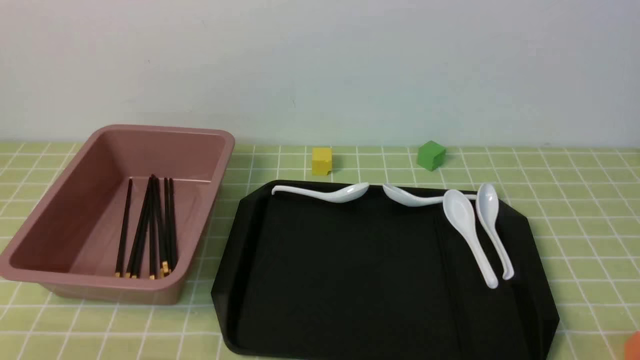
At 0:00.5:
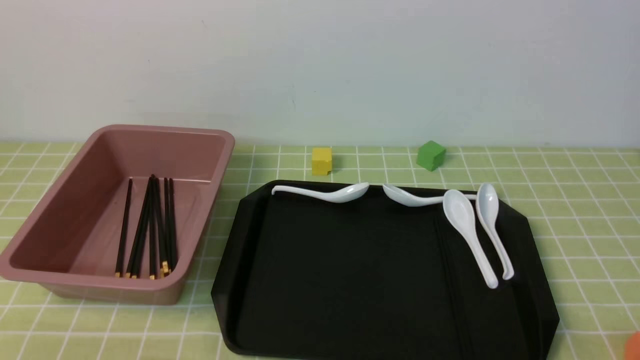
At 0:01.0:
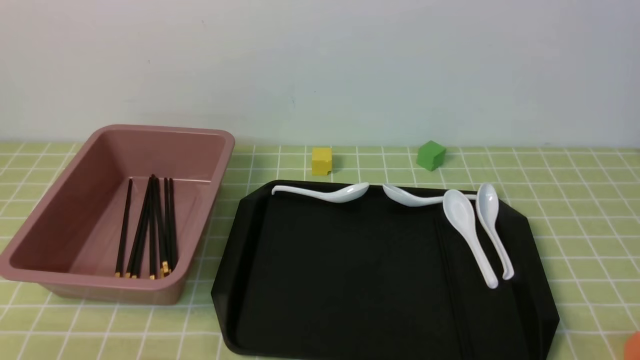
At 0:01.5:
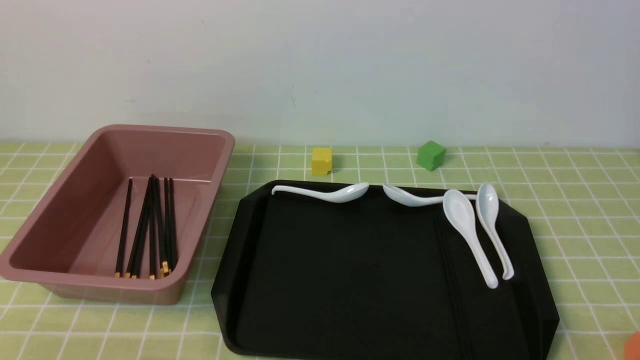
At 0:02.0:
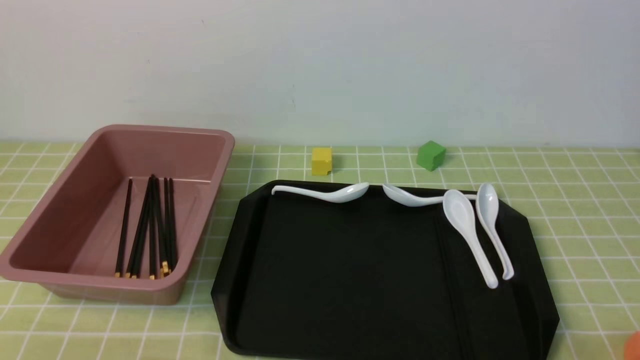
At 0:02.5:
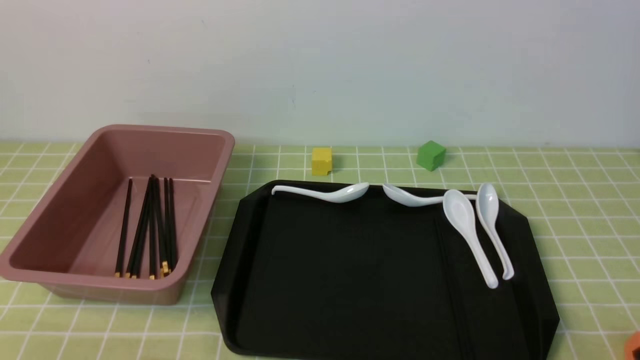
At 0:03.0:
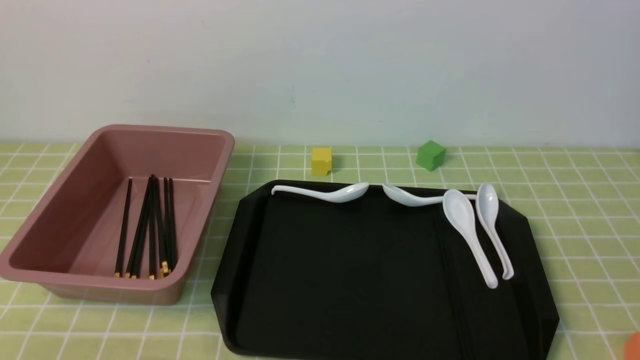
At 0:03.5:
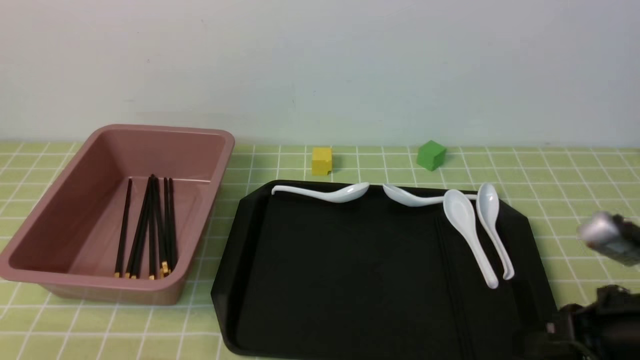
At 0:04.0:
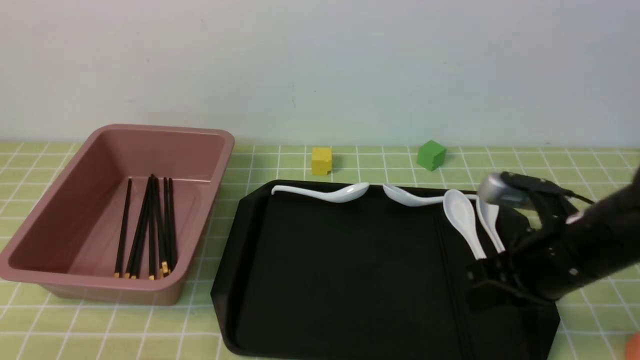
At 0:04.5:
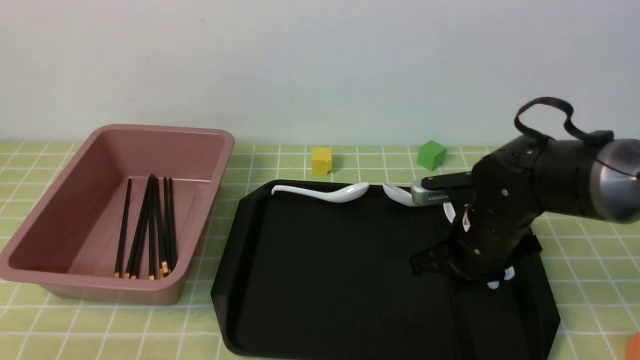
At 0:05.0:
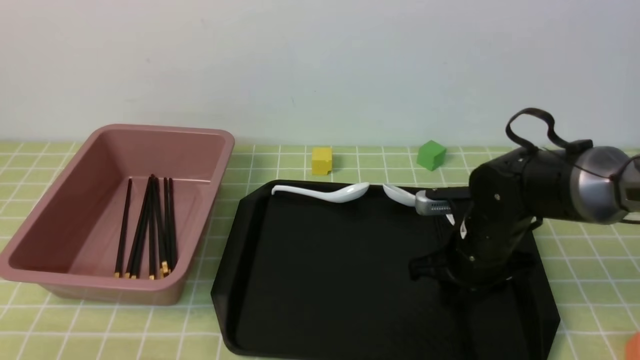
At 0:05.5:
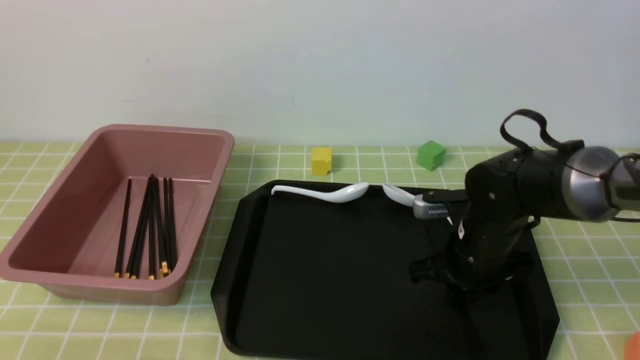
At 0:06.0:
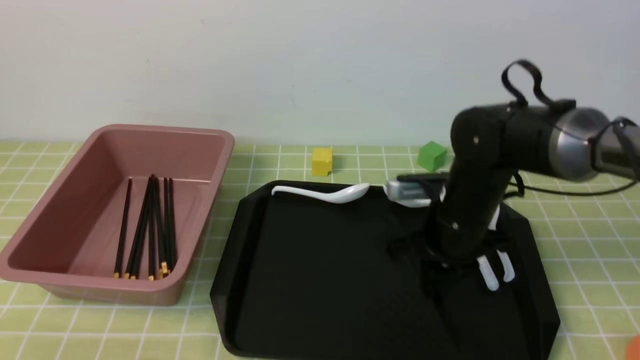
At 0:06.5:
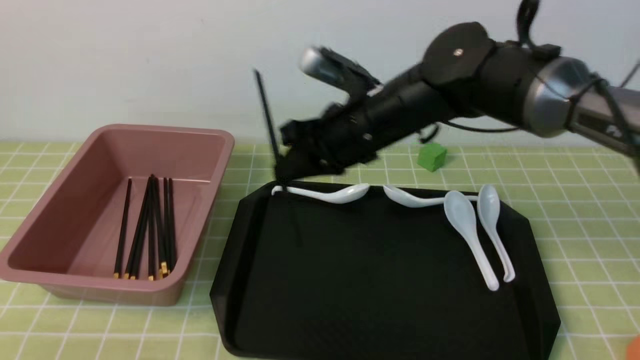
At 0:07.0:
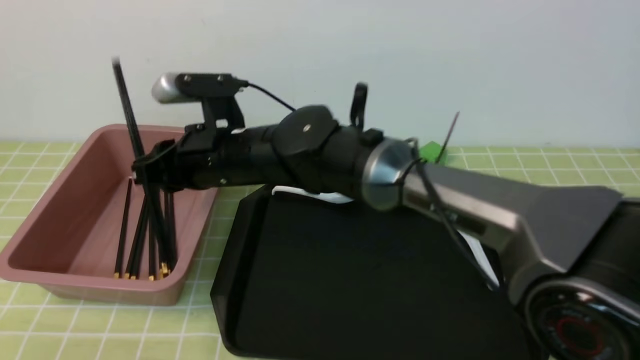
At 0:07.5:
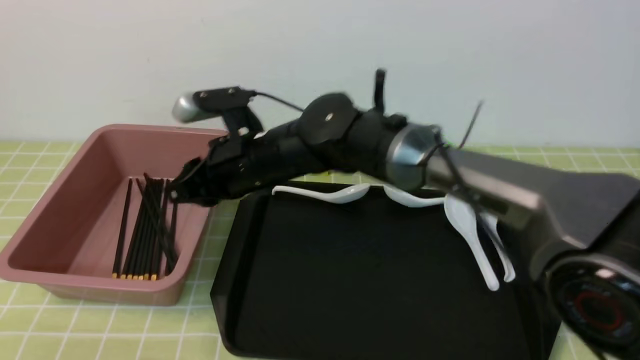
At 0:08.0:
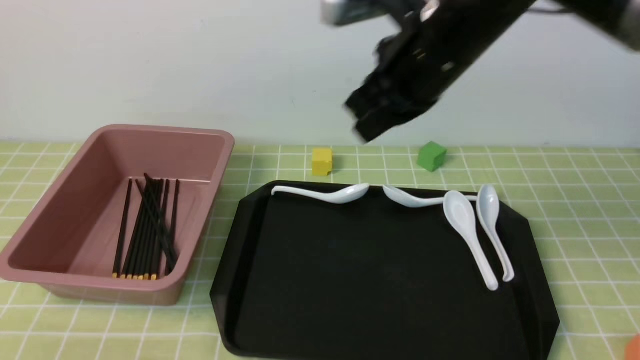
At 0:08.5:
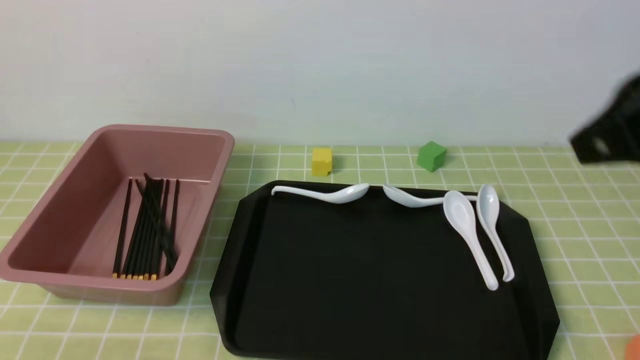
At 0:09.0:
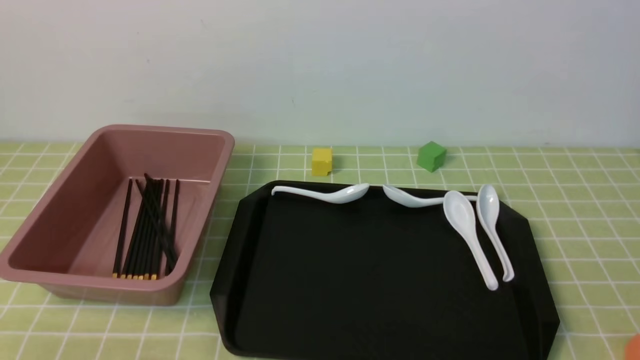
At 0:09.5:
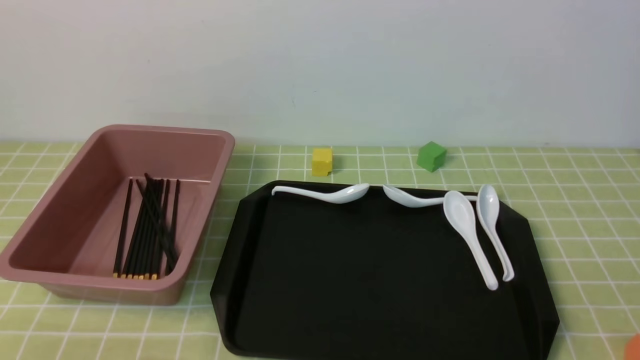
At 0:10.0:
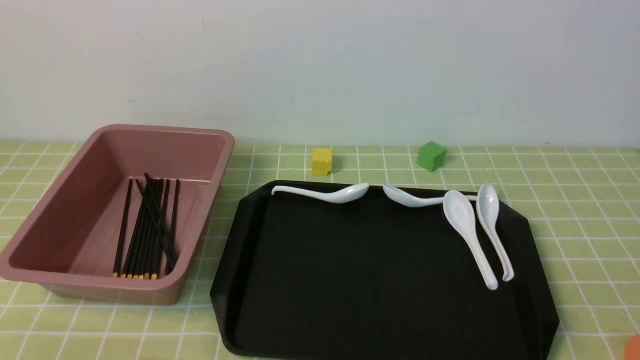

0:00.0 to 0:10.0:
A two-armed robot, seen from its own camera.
Step, 0:00.0 to 0:06.0: use the right arm to grab a pair of chopsticks.
Step, 0:06.5 to 0:07.0: use the right arm to put the chopsticks into the lunch box.
0:02.0 to 0:04.0: The right gripper moves forward, about 20 cm, and closes its fingers.
0:04.0 to 0:06.0: The right gripper shifts approximately 15 cm forward and to the left, and opens, then closes again.
0:06.0 to 0:08.0: The right gripper heads upward, covering roughly 20 cm, travels to the left and back again, approximately 20 cm each way, and closes up.
0:08.0 to 0:10.0: The right gripper travels backward and to the right by roughly 40 cm.

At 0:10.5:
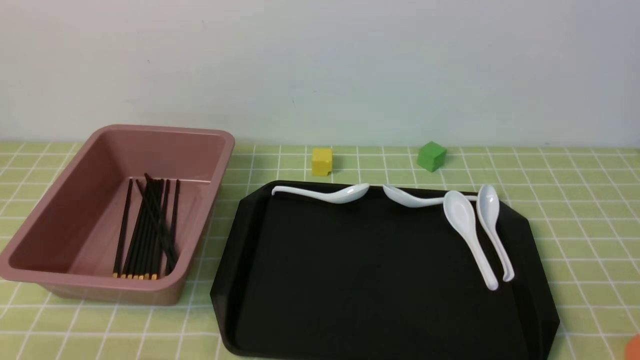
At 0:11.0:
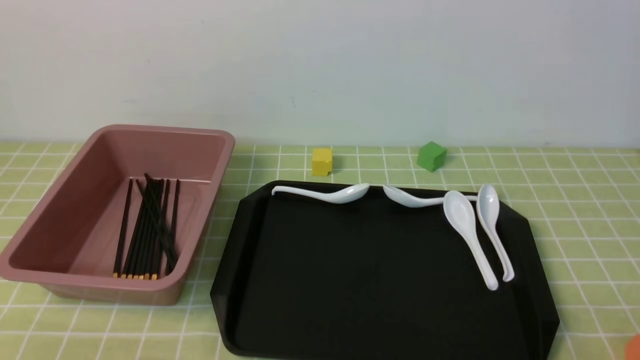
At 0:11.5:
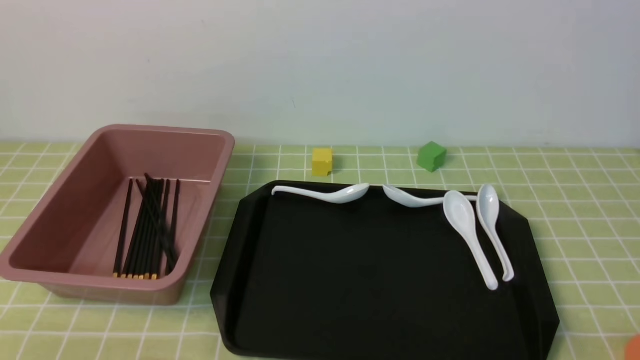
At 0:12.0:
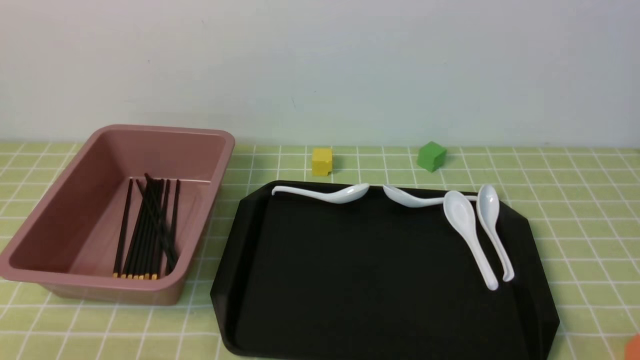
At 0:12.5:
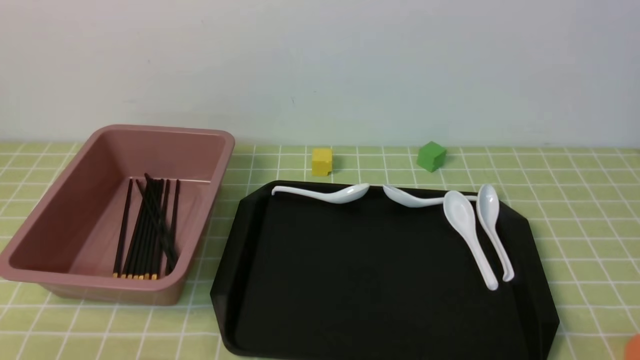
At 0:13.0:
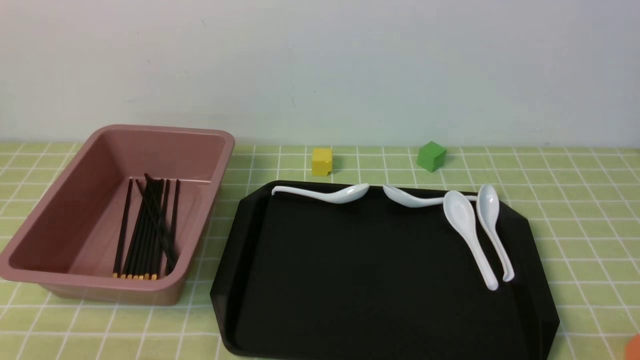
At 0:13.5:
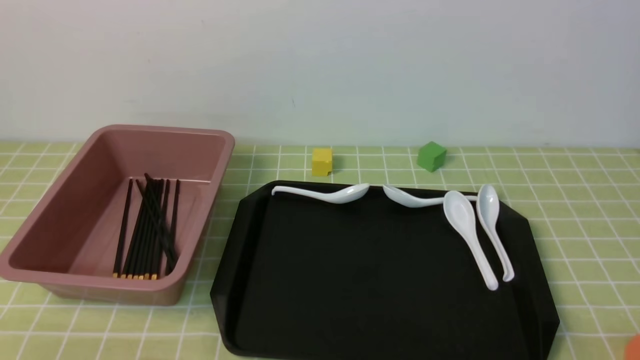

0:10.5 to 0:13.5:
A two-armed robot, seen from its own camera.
0:12.0 to 0:13.5: Both grippers stay about where they are.

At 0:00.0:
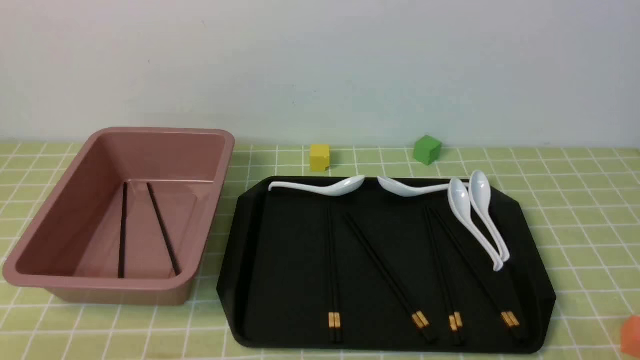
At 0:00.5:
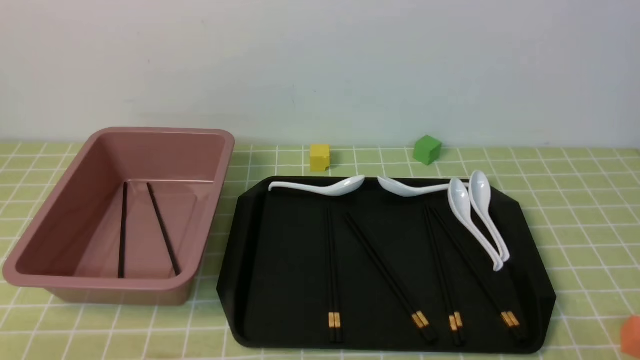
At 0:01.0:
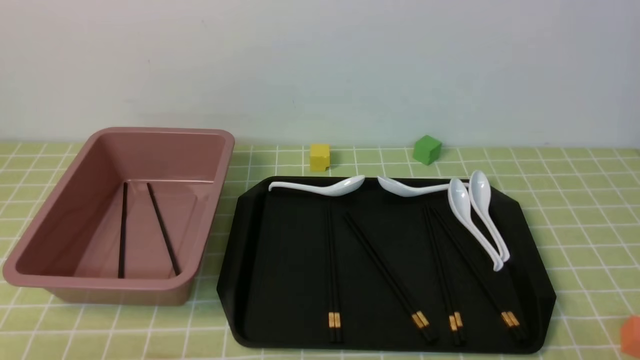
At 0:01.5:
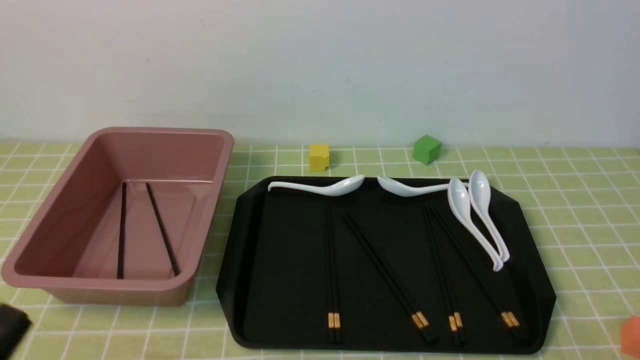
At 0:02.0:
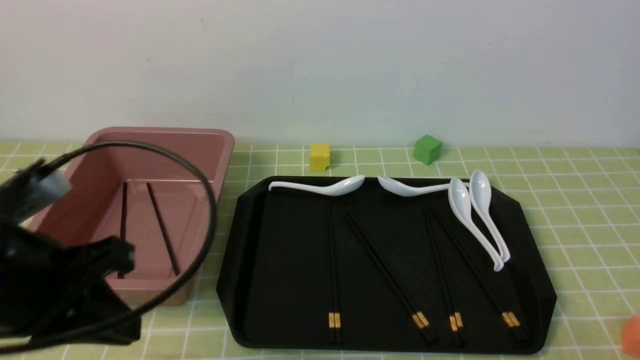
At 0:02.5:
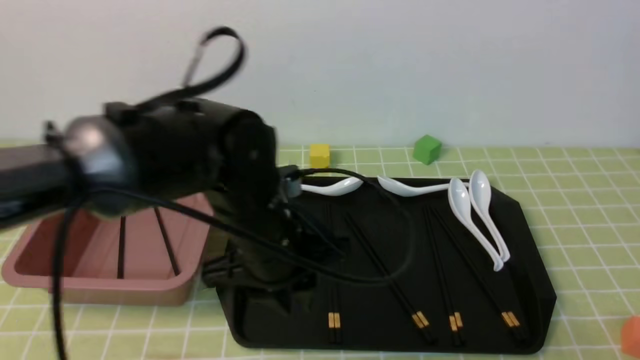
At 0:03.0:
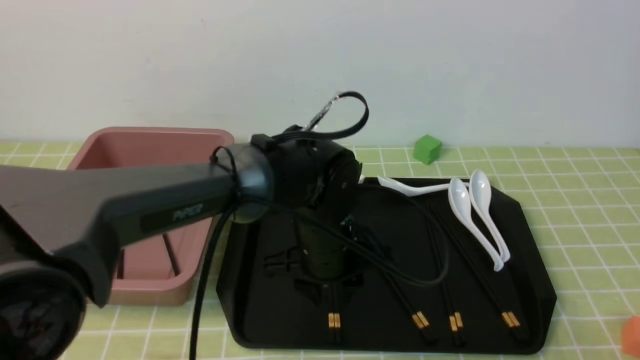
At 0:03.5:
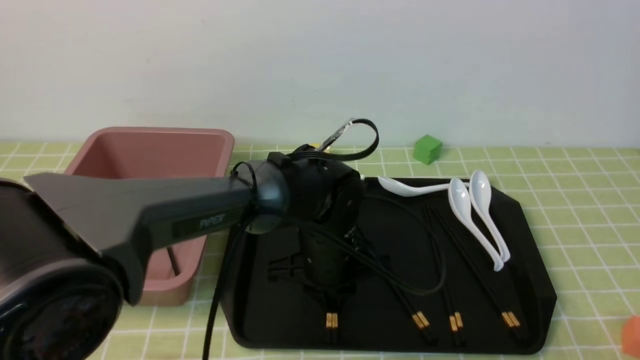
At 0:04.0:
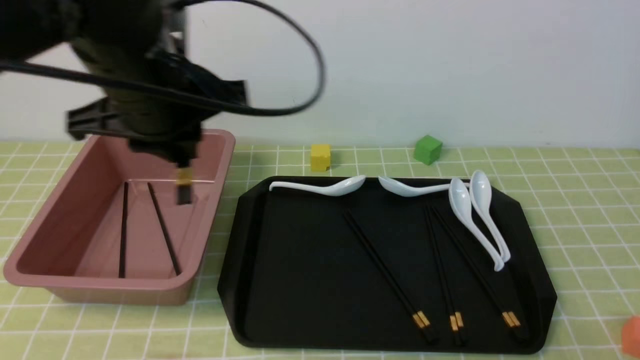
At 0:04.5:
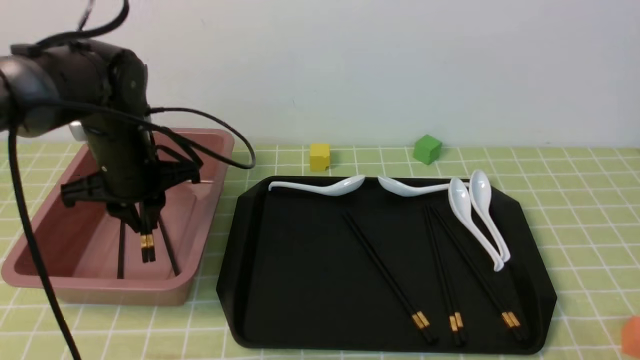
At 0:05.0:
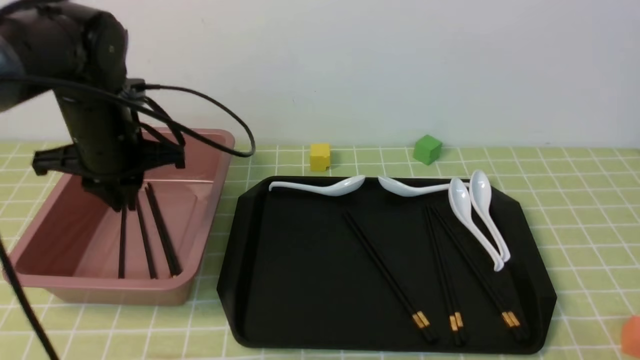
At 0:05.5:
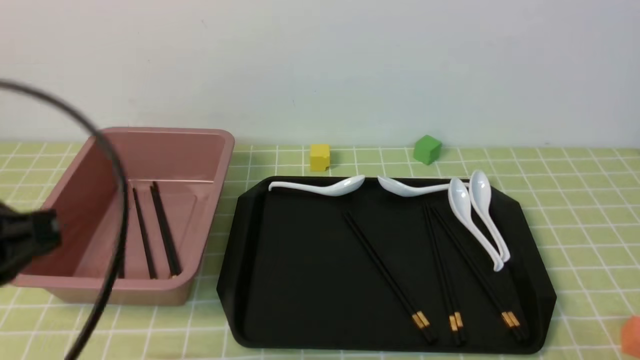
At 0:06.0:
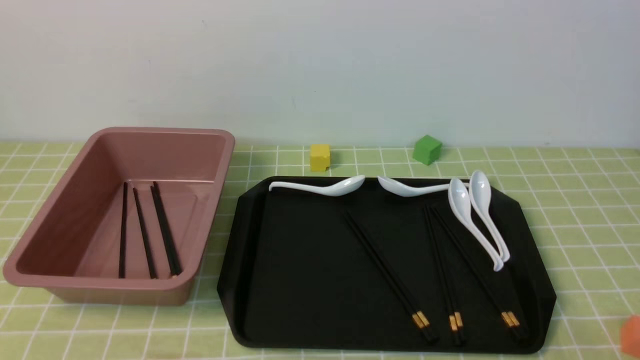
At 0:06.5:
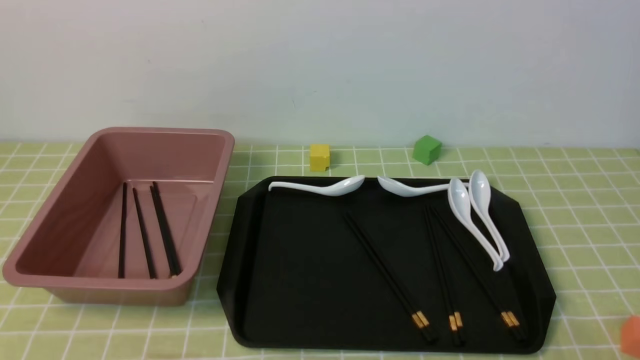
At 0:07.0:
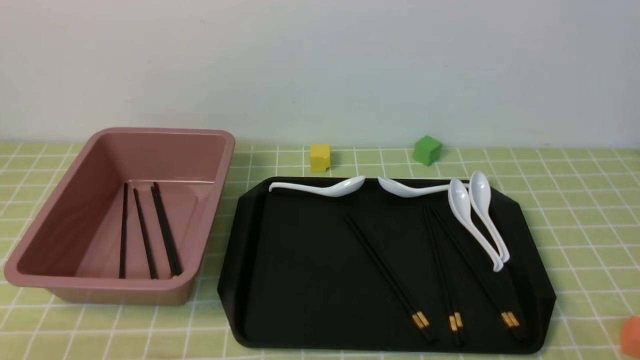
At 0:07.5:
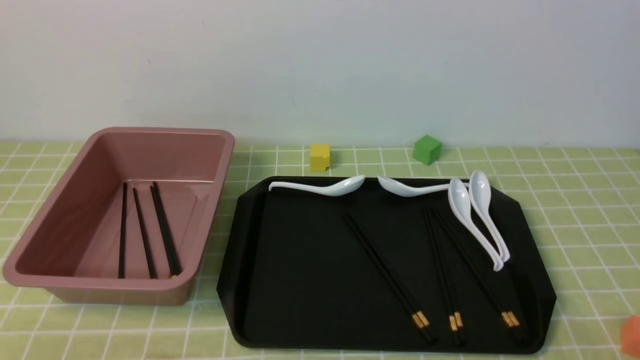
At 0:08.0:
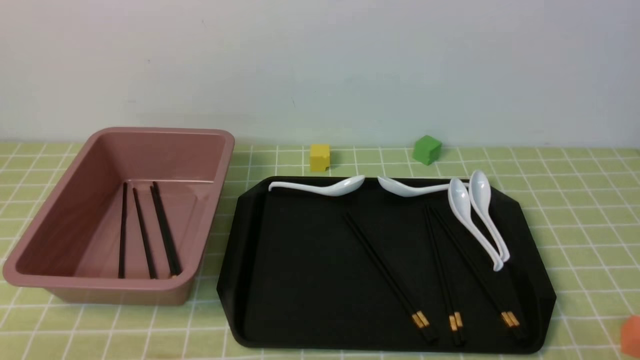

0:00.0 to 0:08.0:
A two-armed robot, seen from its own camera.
Step, 0:00.0 to 0:03.5: use the left arm to grab a pair of chopsticks.
Step, 0:04.0 to 0:05.0: use the left arm to put the chopsticks into the lunch box.
0:02.0 to 0:04.0: The left gripper goes about 20 cm forward and to the right, and opens up.
0:04.0 to 0:06.0: The left gripper moves backward and to the left, approximately 30 cm, and closes up.
